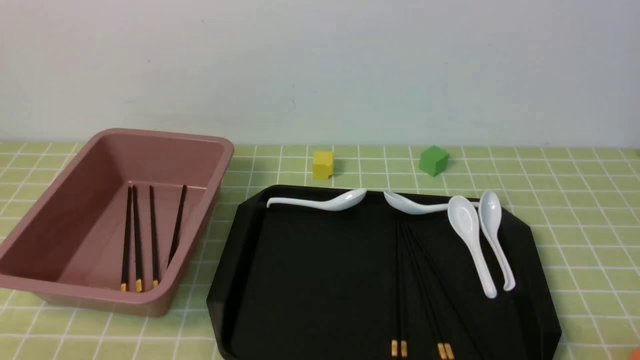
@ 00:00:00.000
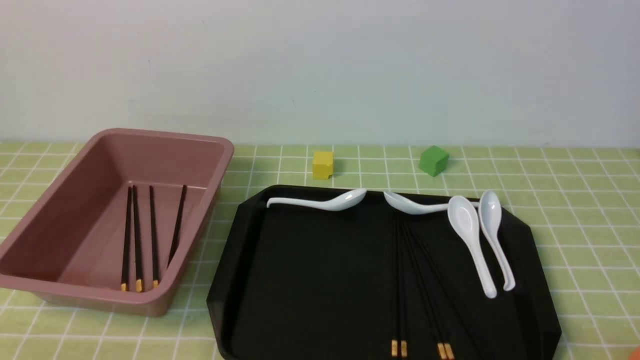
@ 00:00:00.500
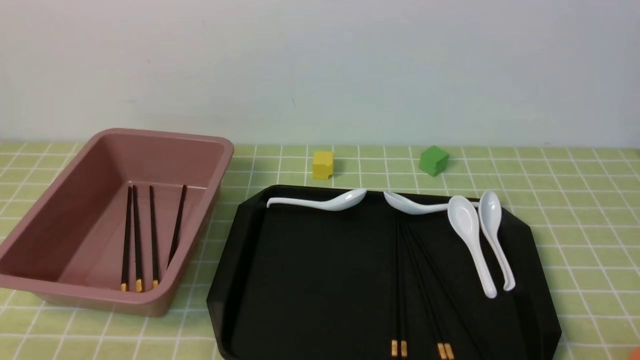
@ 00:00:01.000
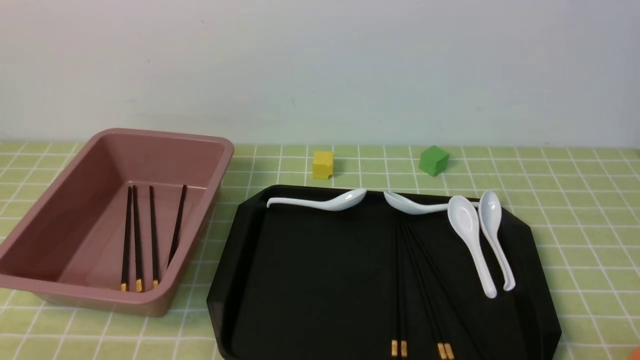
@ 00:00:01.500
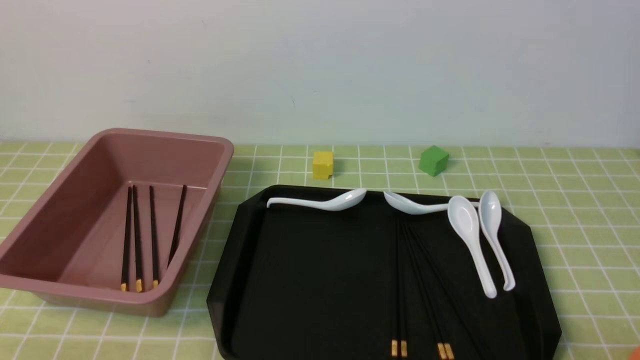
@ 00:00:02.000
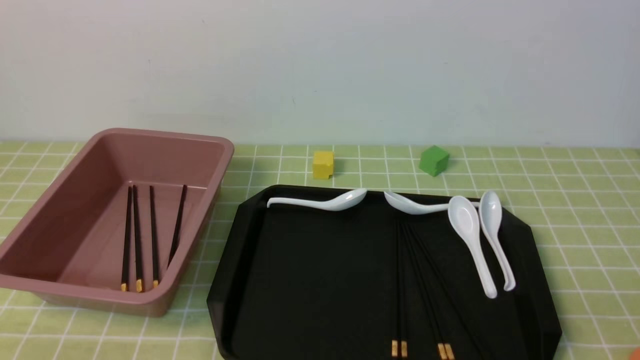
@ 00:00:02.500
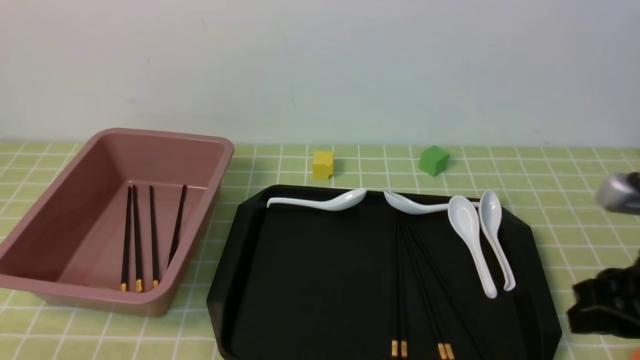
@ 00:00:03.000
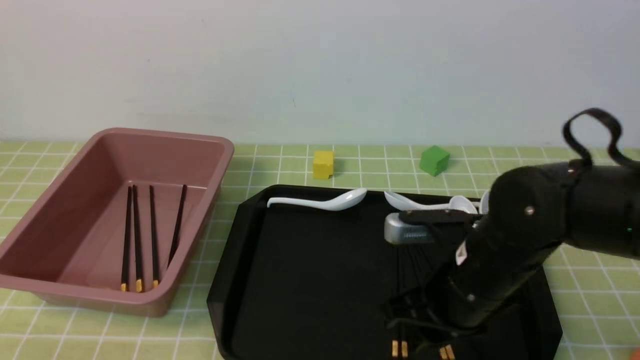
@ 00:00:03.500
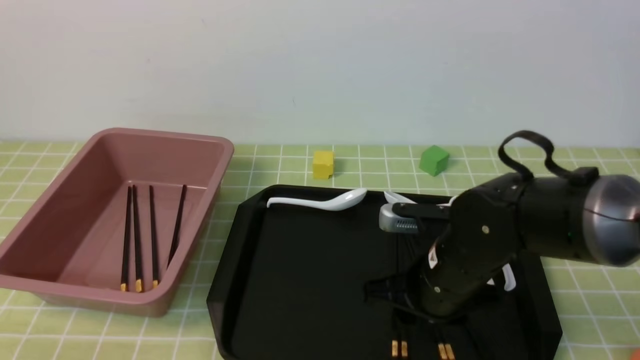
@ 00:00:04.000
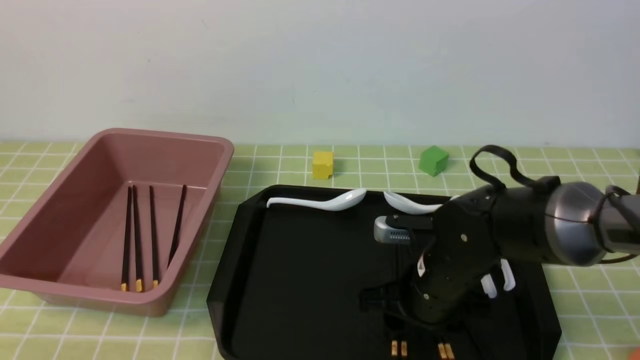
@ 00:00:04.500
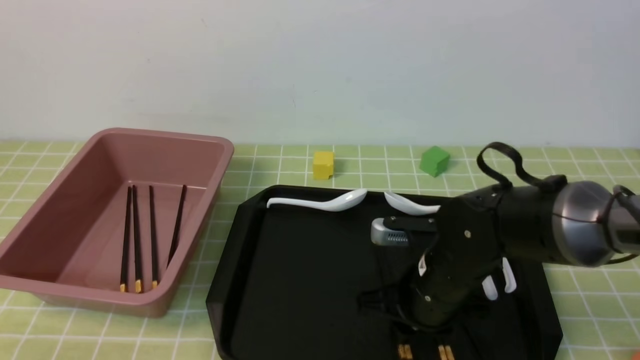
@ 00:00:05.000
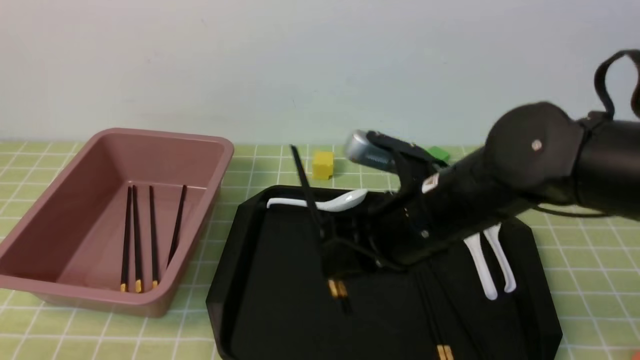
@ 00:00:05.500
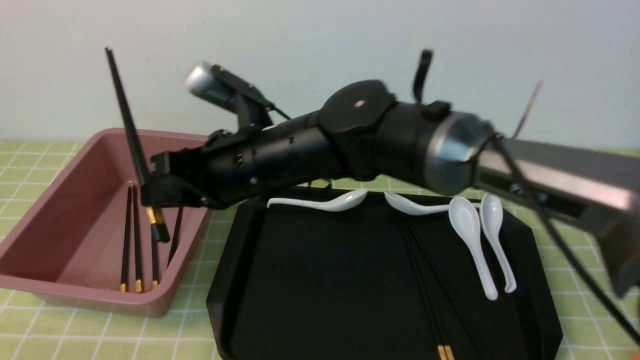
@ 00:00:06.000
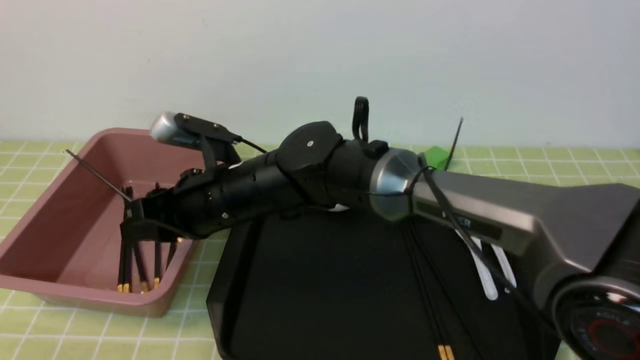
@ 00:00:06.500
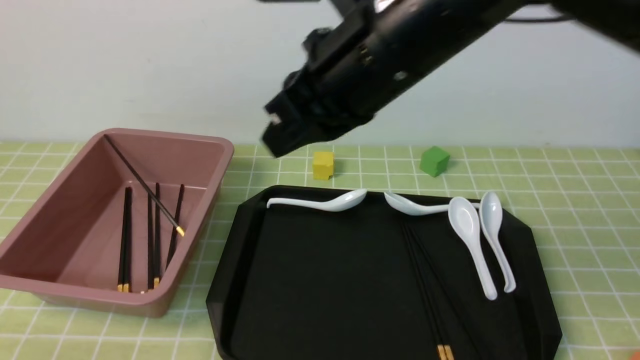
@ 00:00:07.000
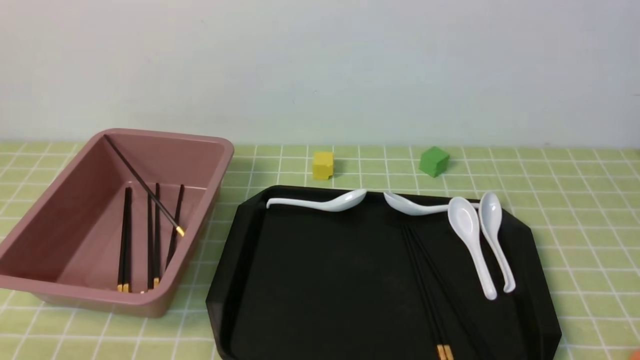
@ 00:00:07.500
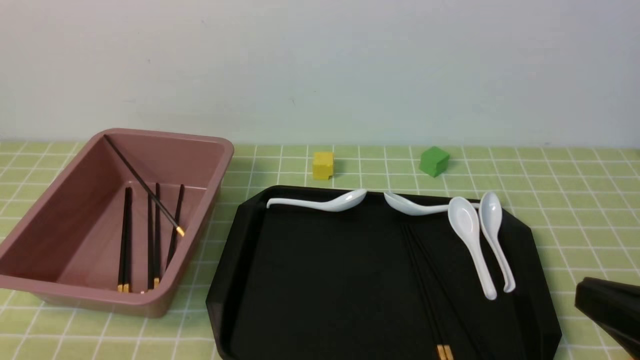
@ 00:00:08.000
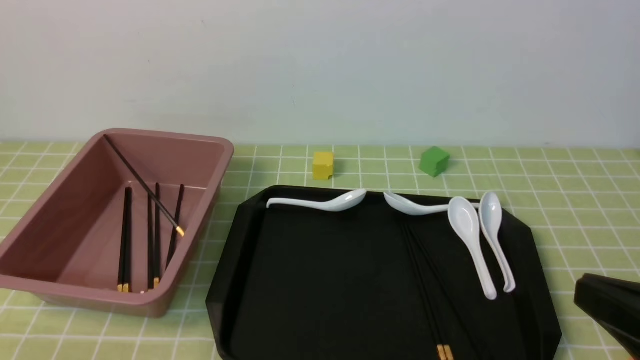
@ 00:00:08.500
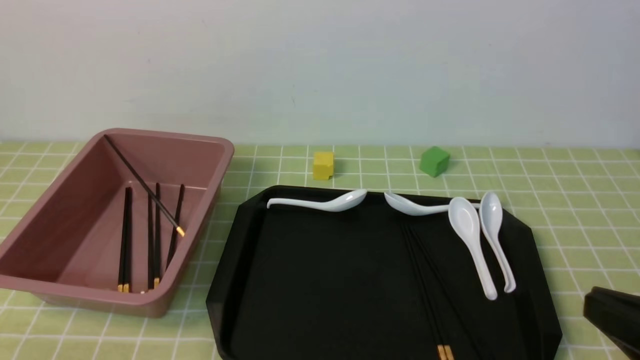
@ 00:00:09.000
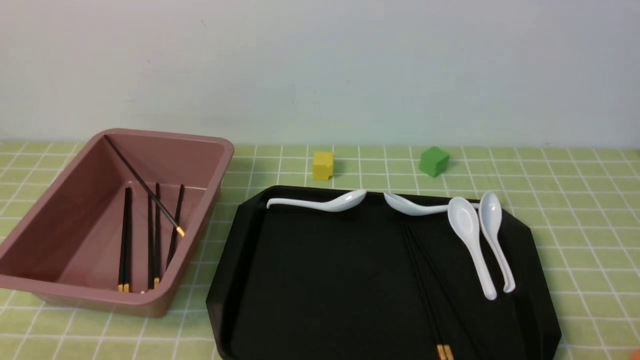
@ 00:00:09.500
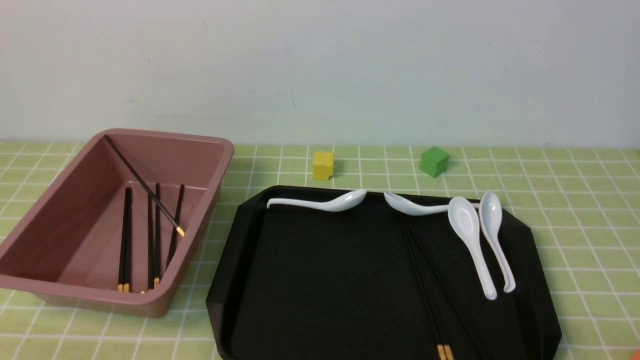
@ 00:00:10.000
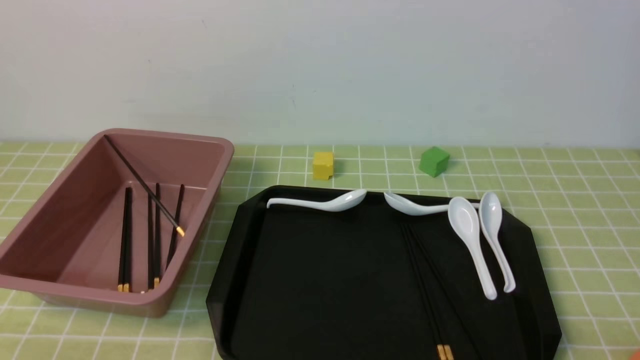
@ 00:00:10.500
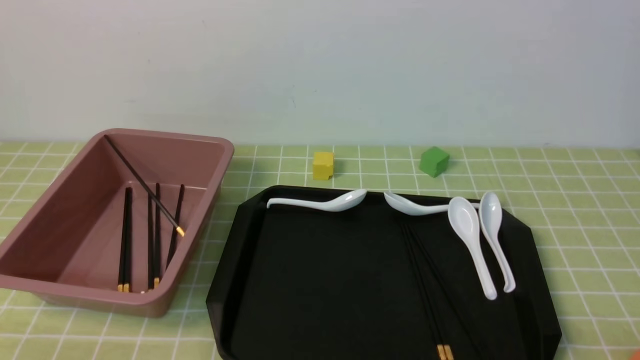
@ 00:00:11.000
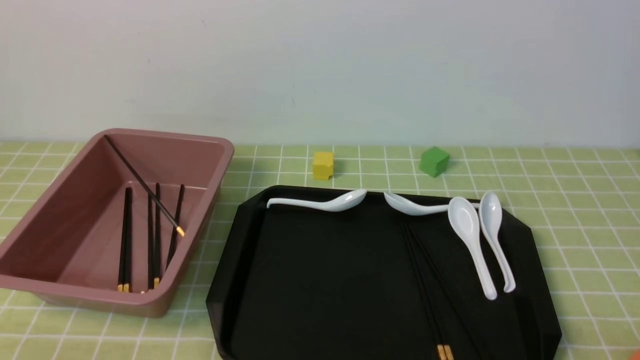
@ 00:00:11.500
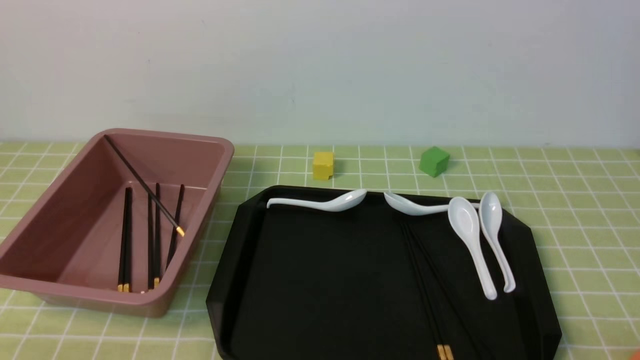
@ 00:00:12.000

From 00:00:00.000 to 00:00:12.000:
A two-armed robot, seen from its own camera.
Step, from 00:00:00.000 to 00:00:05.000: use the right arm to grab a pair of chopsticks.
Step, from 00:00:05.500 to 00:00:06.500: use the right arm to put the chopsticks into the lunch box.
From 00:00:02.000 to 00:00:04.000: The right gripper is displaced forward and to the left by approximately 30 cm.
From 00:00:04.000 to 00:00:06.000: The left gripper opens; the right gripper heads to the left and upward, covering about 20 cm.
From 00:00:06.000 to 00:00:08.000: The right gripper travels to the right and backward by about 40 cm, and closes up.
From 00:00:08.000 to 00:00:10.000: The right gripper travels downward and to the right by approximately 15 cm.
From 00:00:10.000 to 00:00:12.000: Both grippers stay put.
